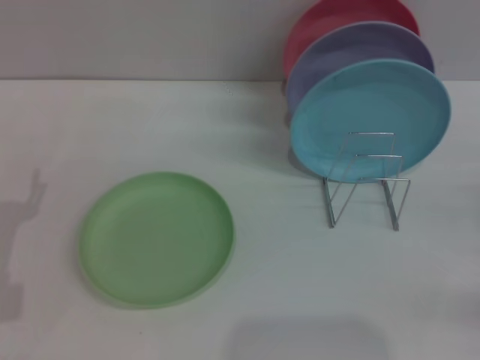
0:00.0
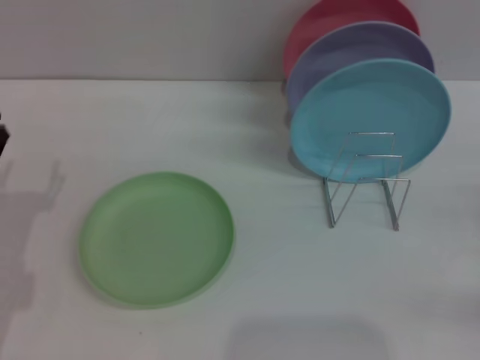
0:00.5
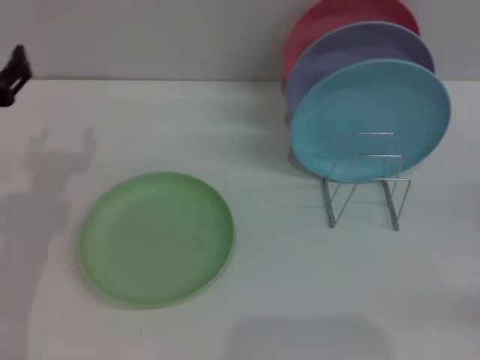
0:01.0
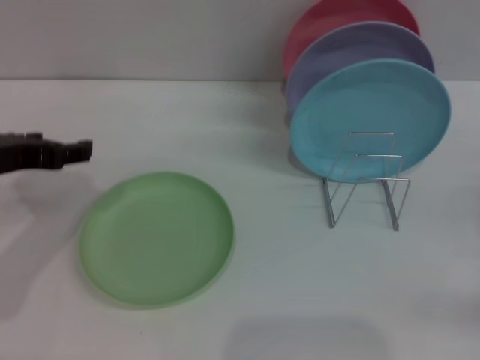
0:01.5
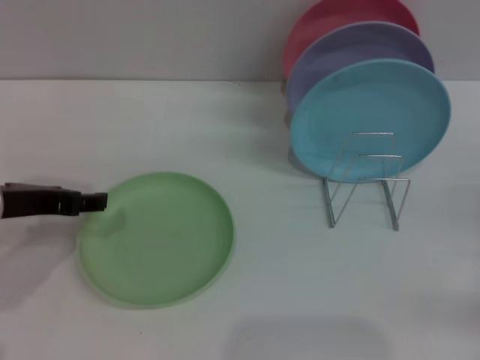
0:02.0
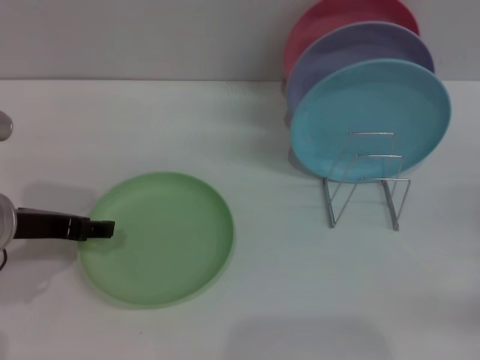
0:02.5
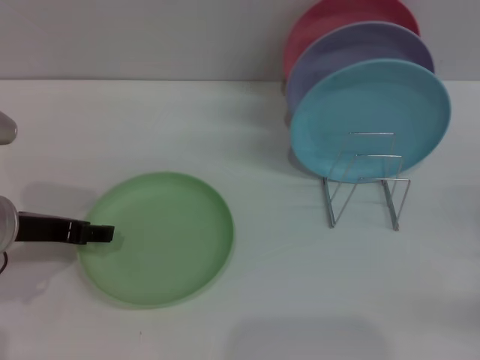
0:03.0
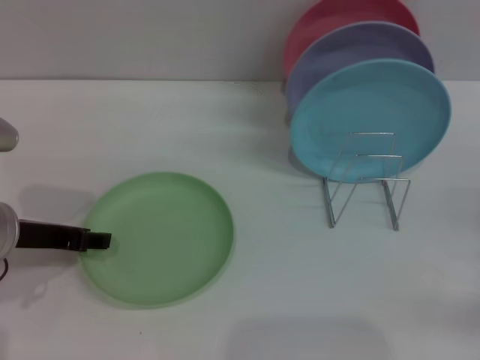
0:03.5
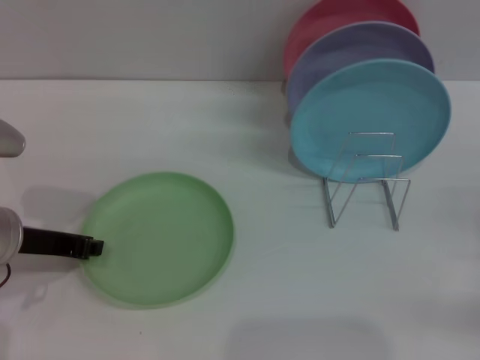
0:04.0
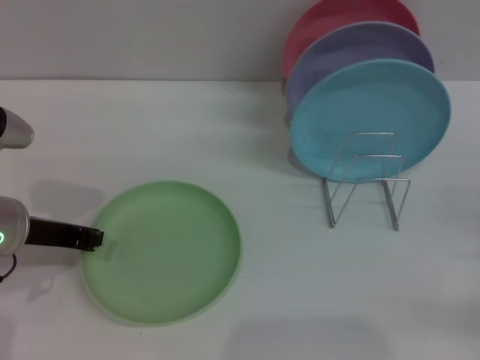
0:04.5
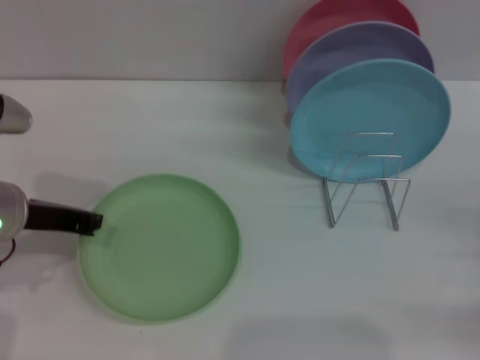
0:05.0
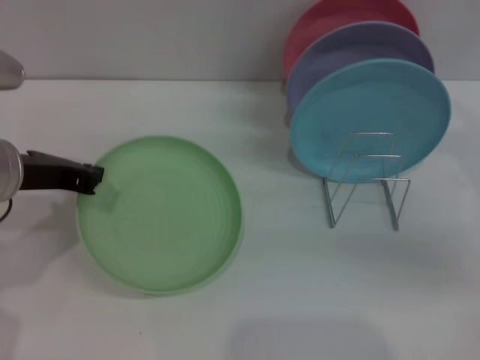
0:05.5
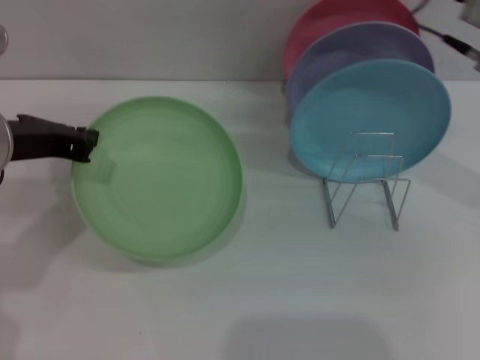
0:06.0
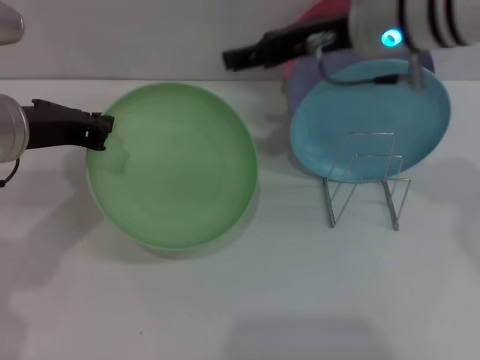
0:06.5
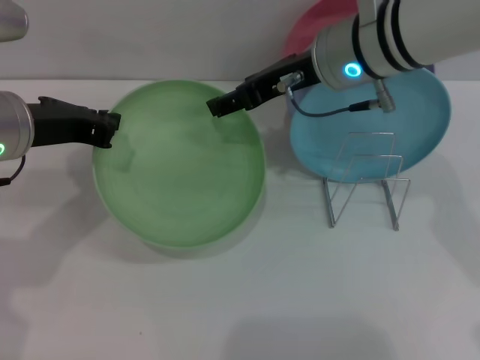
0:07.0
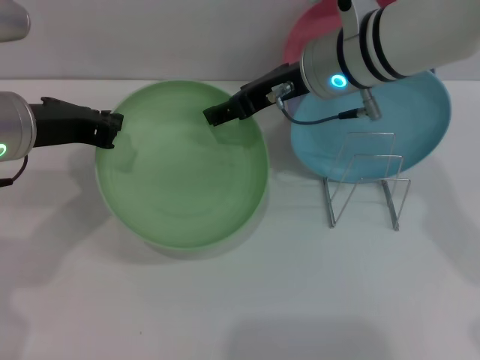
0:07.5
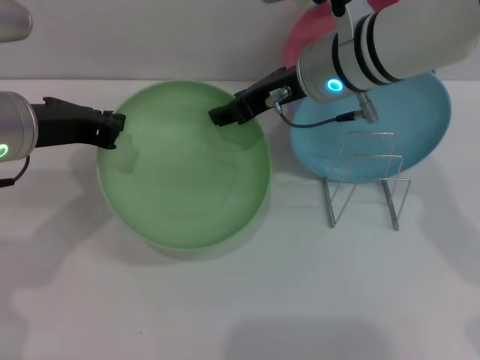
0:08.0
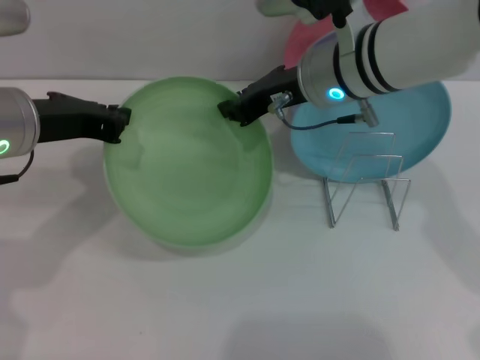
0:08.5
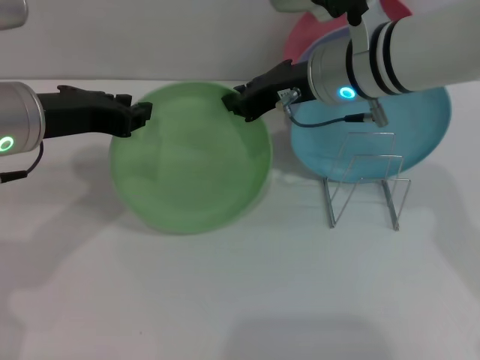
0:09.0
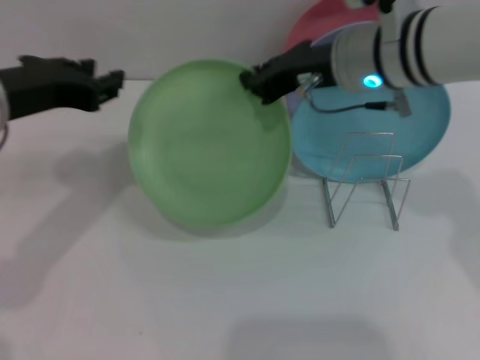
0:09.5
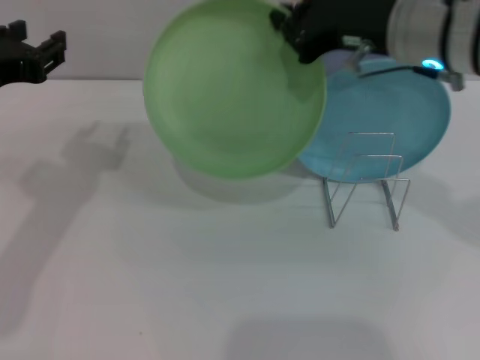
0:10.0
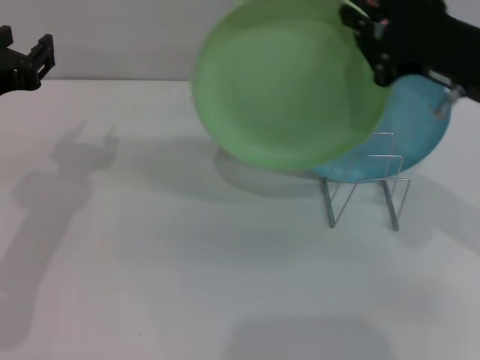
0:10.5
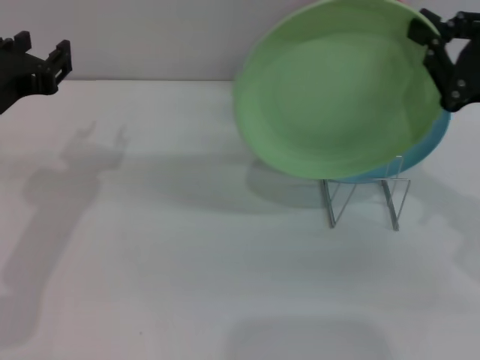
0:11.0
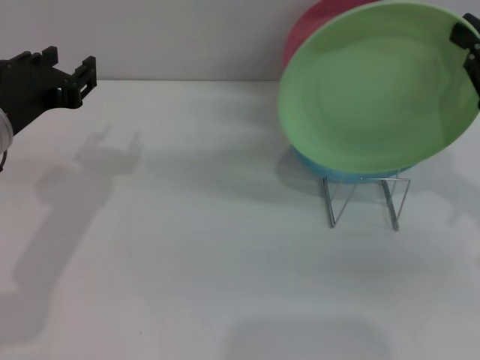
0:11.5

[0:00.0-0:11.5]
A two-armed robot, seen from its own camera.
Task of the whole recording: Grip the plate with one hand, pass it to the other, then set it on the shelf.
Step, 0:00.0 to 0:05.5: Pick up the plate with the left gripper.
Step, 0:06.0 to 0:10.0: Pass the plate from the left gripper to the right gripper.
0:00.0 to 0:02.0: The left gripper heads upward, forward and to the right, covering some 15 cm.
0:02.0 to 0:04.0: The left gripper closes its fingers.
0:04.0 to 0:06.0: The right gripper shifts roughly 30 cm upward, to the left and forward, while the left gripper heads upward, covering some 10 cm, and closes.
0:06.0 to 0:07.5: The right gripper heads to the left, covering roughly 10 cm.
0:07.5 to 0:09.5: The right gripper closes up.
0:09.5 to 0:11.5: The right gripper travels to the right and backward by about 20 cm, while the left gripper shifts by roughly 5 cm.

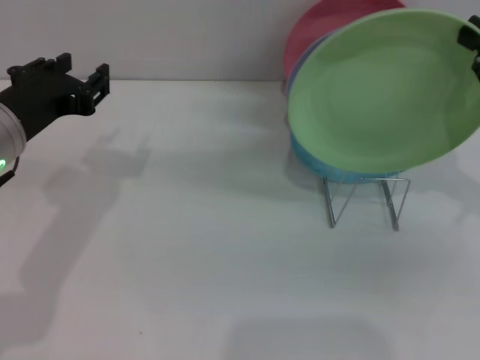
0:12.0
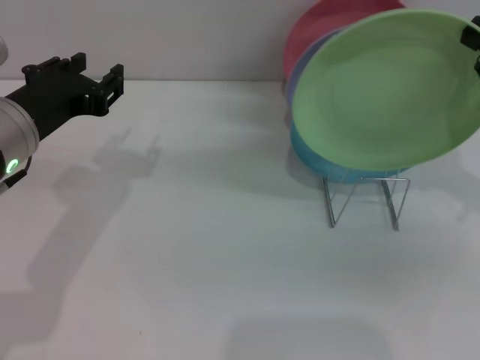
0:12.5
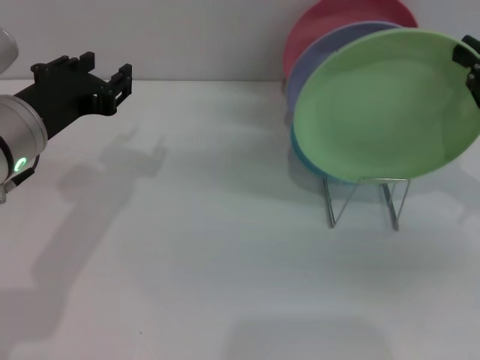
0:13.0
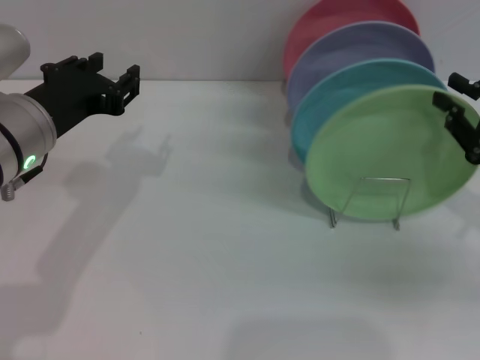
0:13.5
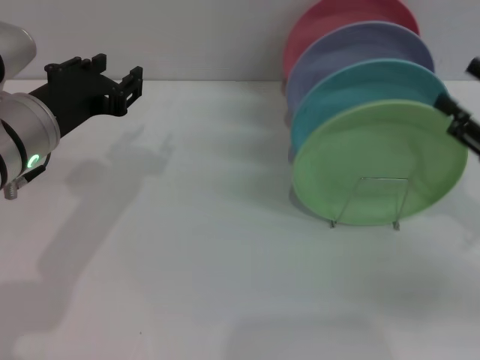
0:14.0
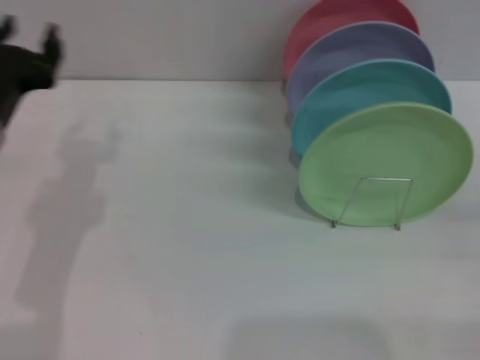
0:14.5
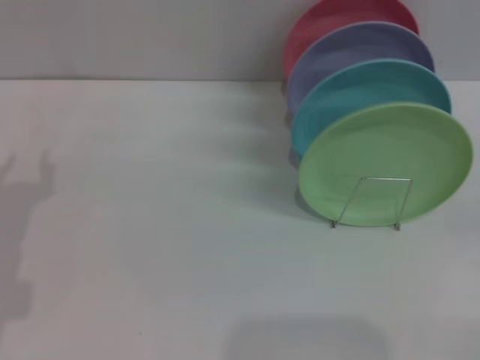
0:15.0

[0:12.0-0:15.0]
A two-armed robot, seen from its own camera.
Task of the whole recording: Grip the plate with one hand, pass it to the other, then set it on the shelf.
Step, 0:12.0 to 0:14.0: Place the plate on the shelf with the right gripper.
0:12.0 to 0:13.5: The right gripper goes some 5 cm downward.
0:13.5 to 0:15.0: The left gripper travels to the left, downward and backward by about 15 cm. The right gripper travels to the right and backward by approximately 10 cm, and opens its fingers.

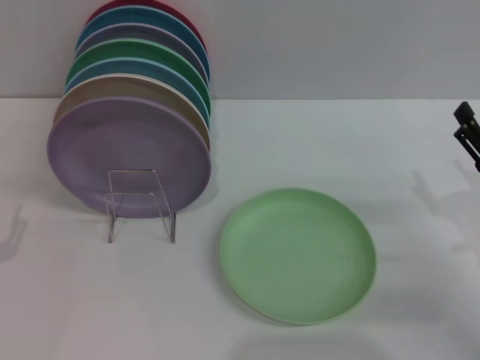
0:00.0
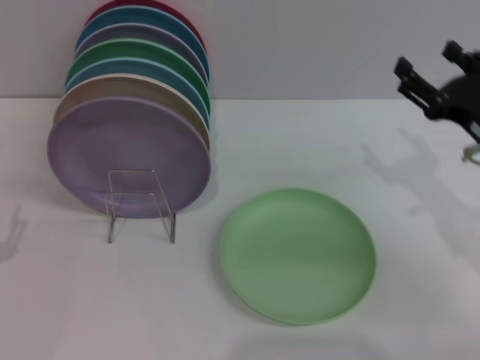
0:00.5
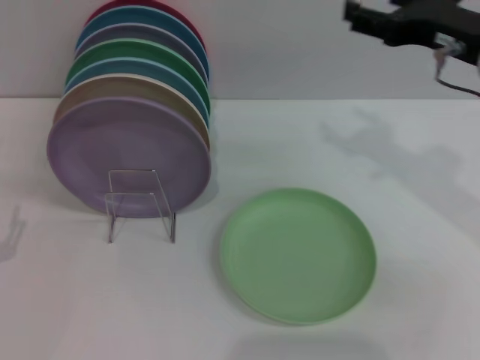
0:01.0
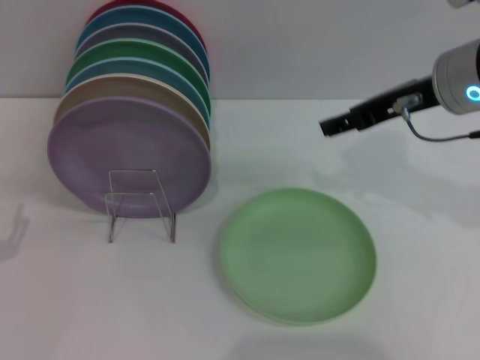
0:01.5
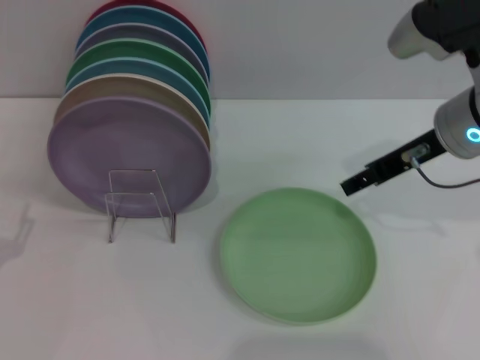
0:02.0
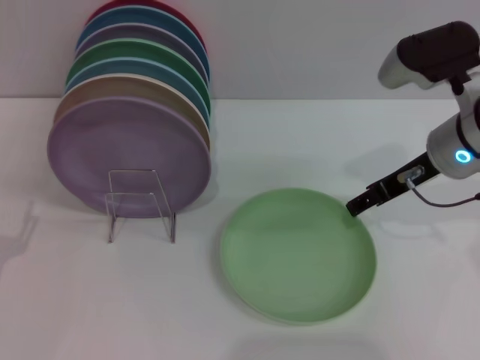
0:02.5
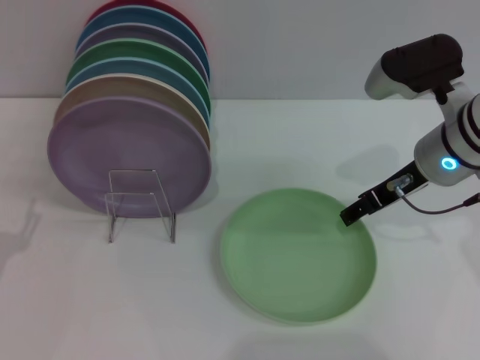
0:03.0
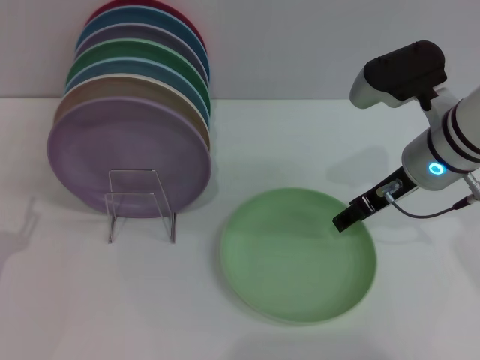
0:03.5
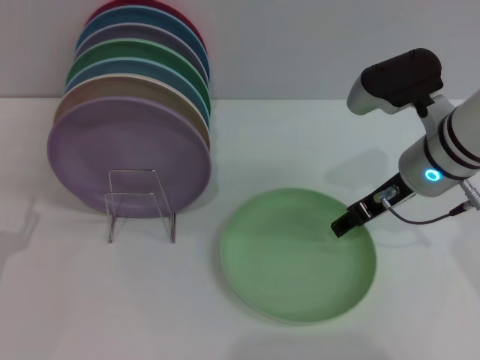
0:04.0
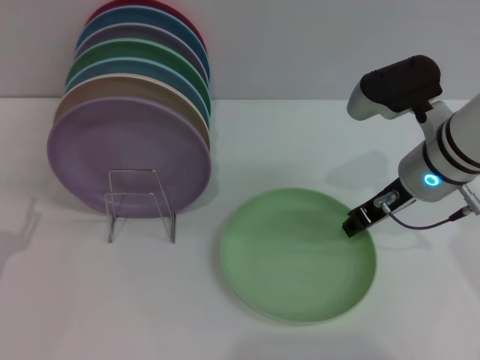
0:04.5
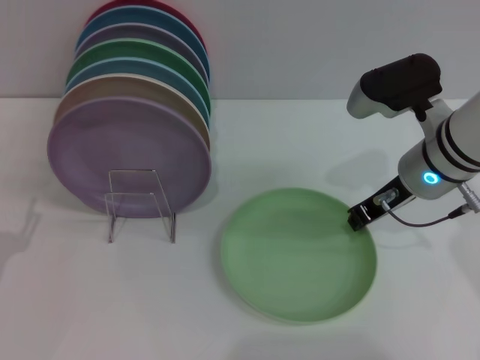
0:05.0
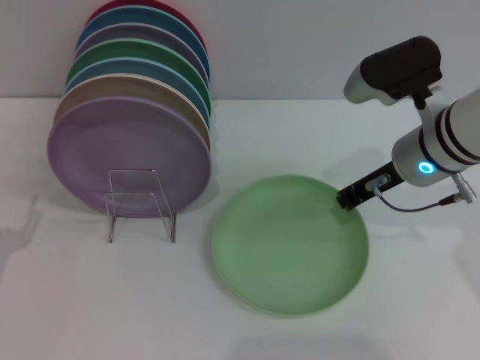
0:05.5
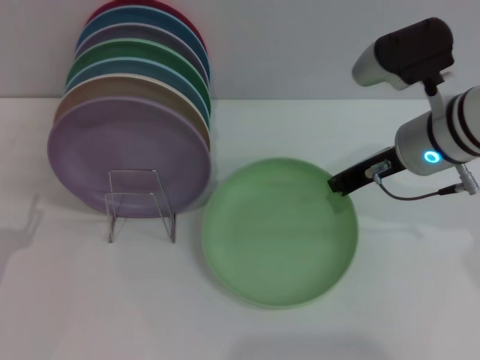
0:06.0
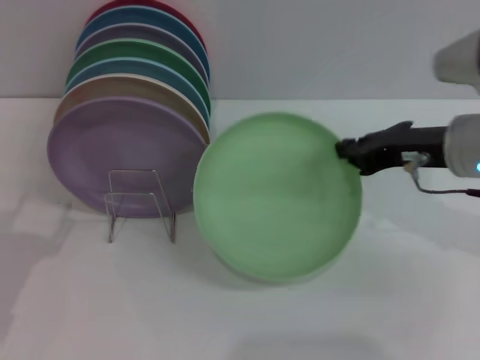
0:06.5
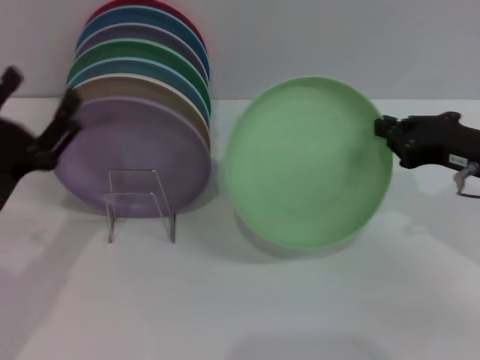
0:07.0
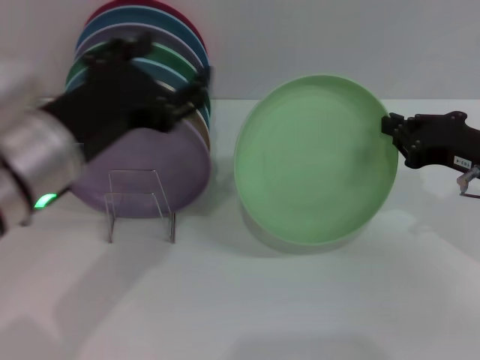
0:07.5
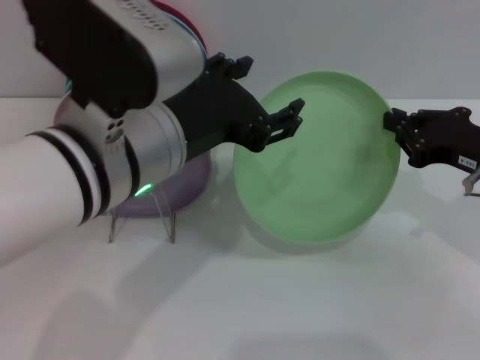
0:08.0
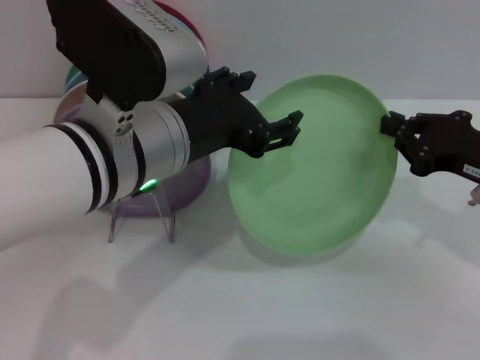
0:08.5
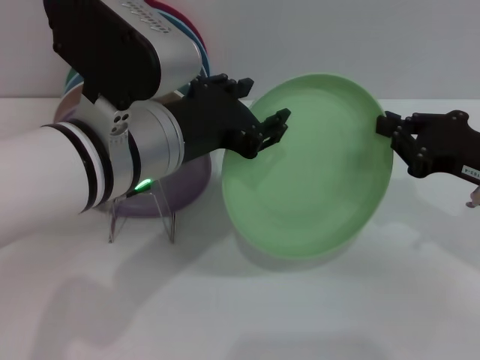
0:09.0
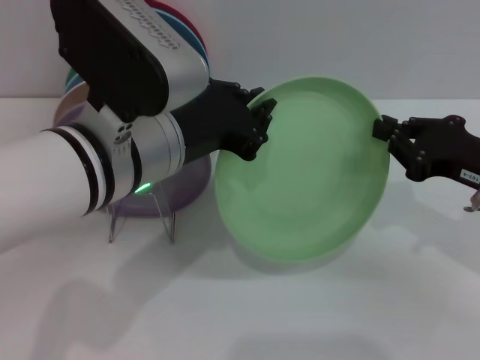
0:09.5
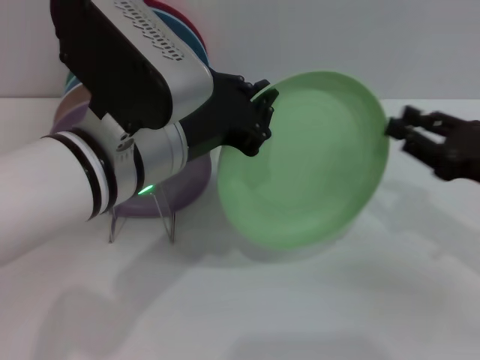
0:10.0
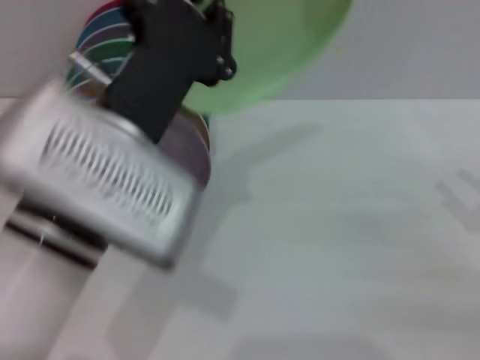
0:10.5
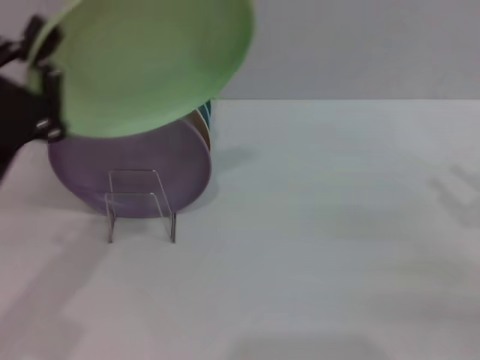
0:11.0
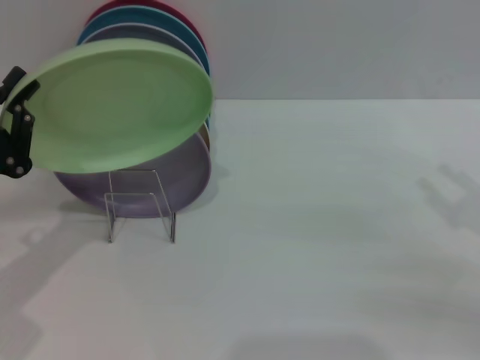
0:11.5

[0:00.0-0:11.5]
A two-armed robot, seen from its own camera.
Task of the whole recording: Grip the plate with one hand, pass it to the other, then set it on the shelf.
Step, 0:00.0 to 0:06.0: Pick up the plate with the right gripper.
Step, 0:07.0 to 0:10.0: Pass the plate from the right gripper to the left gripper.
0:00.0 to 0:02.0: The right gripper is displaced upward, forward and to the left by approximately 20 cm.
0:02.0 to 0:04.0: The right gripper is displaced downward by about 5 cm.
0:04.0 to 0:06.0: The right gripper closes.
0:06.0 to 0:07.5: The right gripper travels to the right and backward by about 10 cm. The left gripper shifts about 20 cm upward and to the right.
0:07.5 to 0:09.5: The left gripper heads to the right, covering some 5 cm, and closes up.
0:09.5 to 0:11.5: The left gripper heads to the left and downward, covering roughly 20 cm. Meanwhile the right gripper travels to the right by approximately 5 cm, and opens its fingers.
